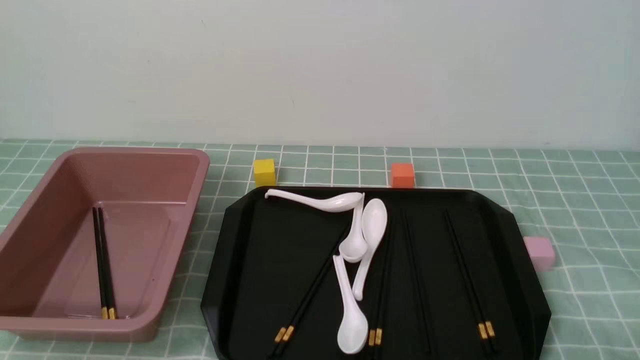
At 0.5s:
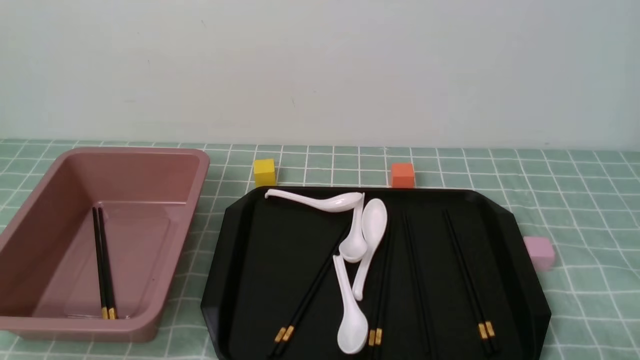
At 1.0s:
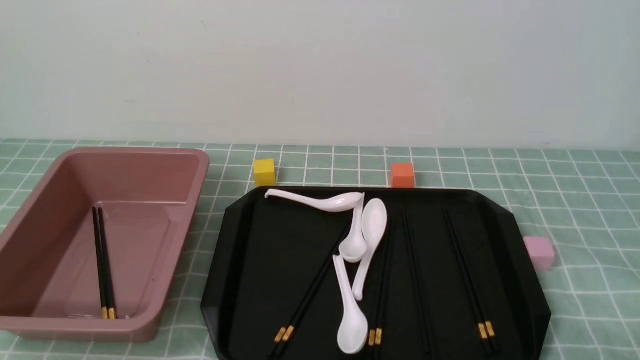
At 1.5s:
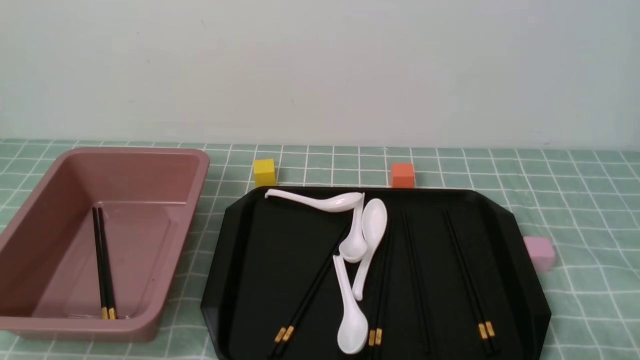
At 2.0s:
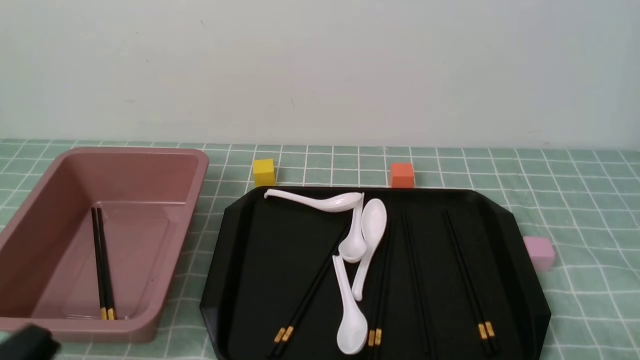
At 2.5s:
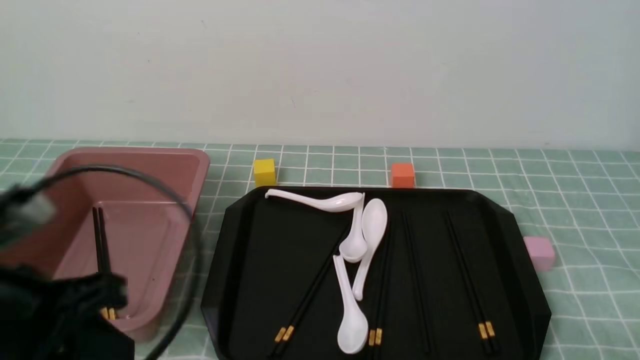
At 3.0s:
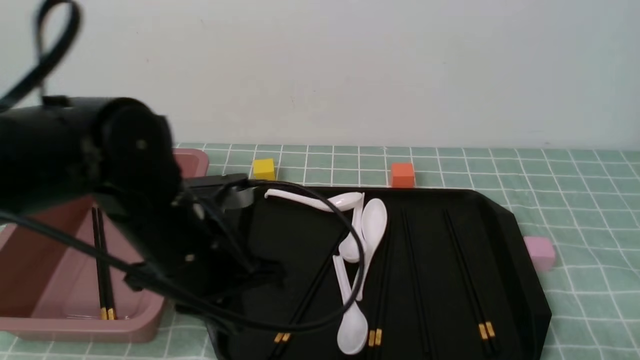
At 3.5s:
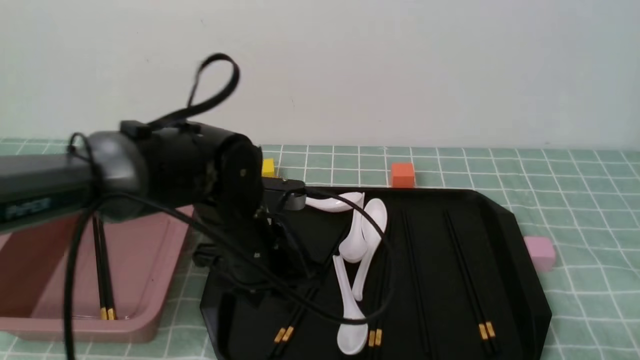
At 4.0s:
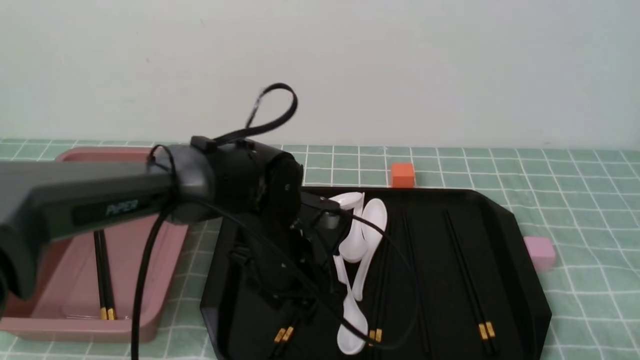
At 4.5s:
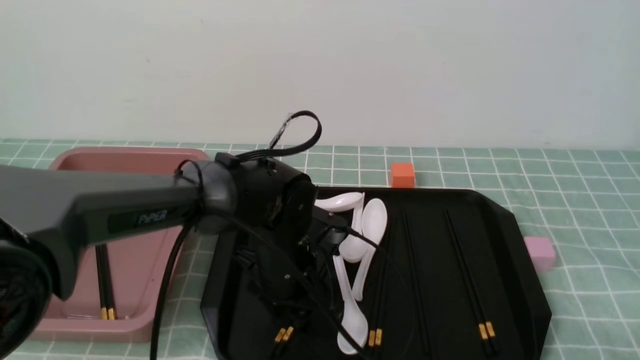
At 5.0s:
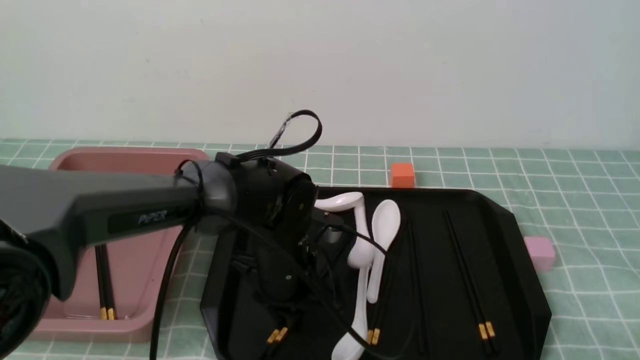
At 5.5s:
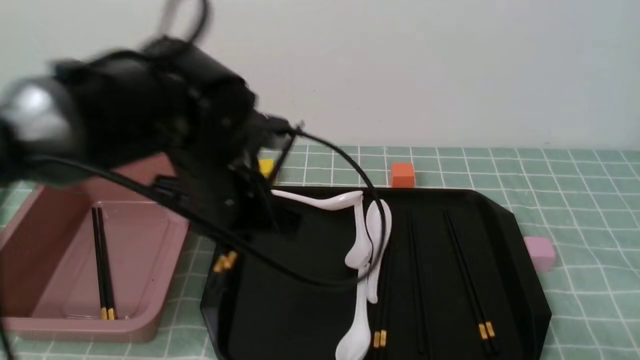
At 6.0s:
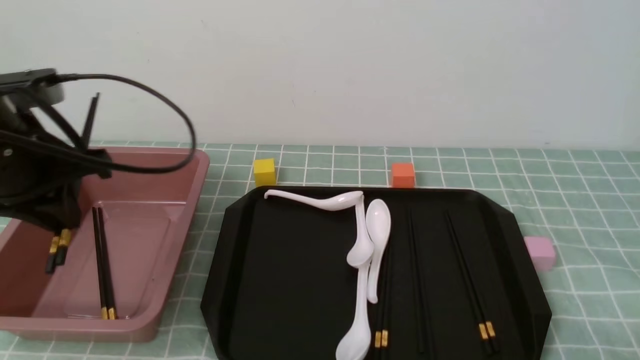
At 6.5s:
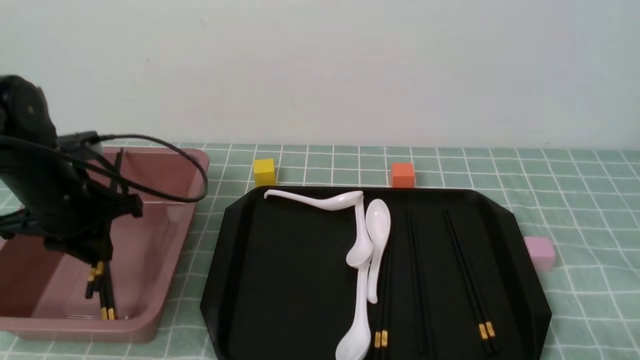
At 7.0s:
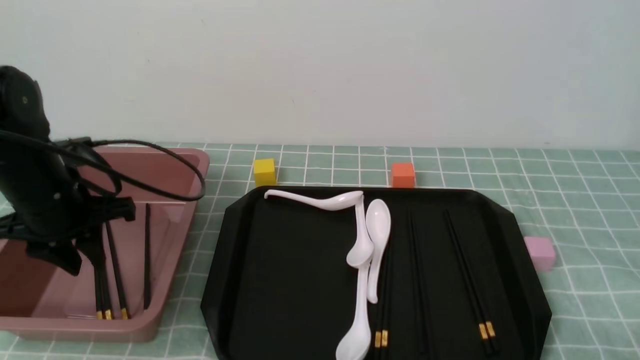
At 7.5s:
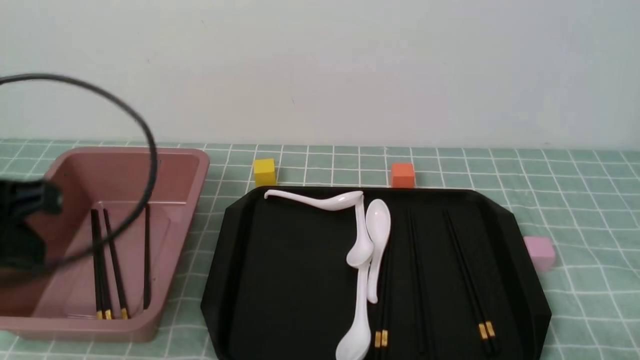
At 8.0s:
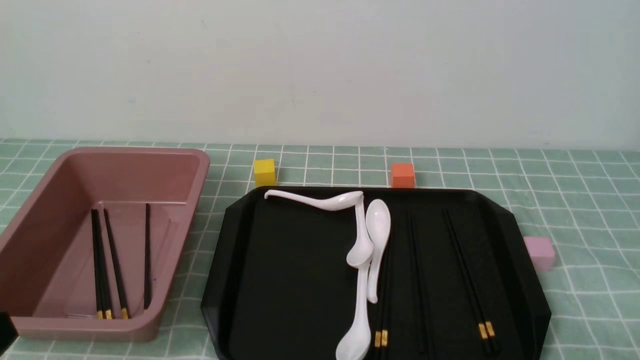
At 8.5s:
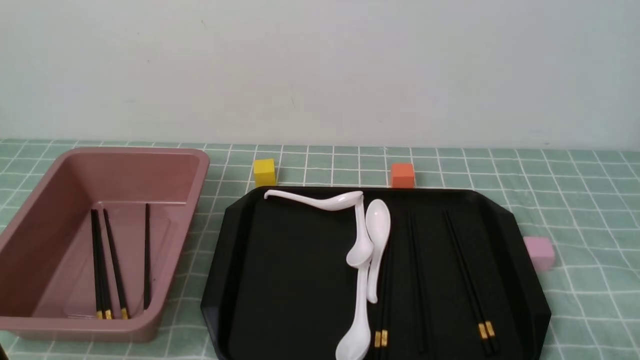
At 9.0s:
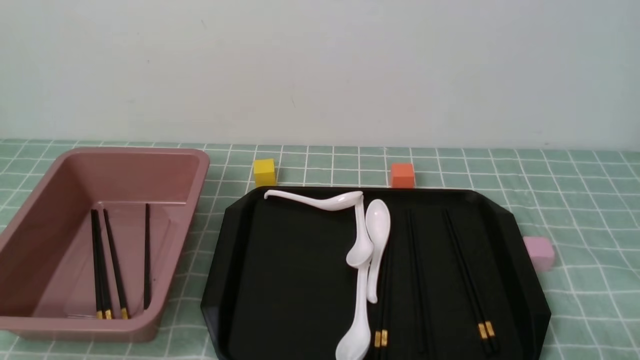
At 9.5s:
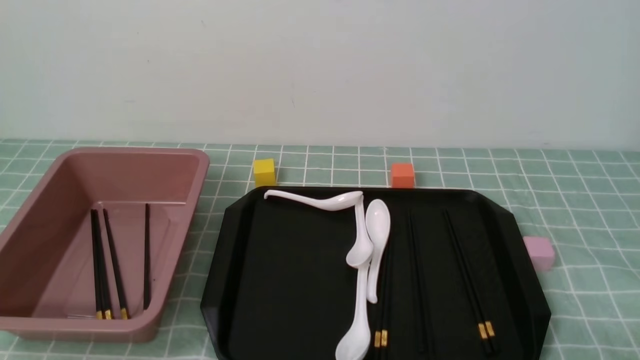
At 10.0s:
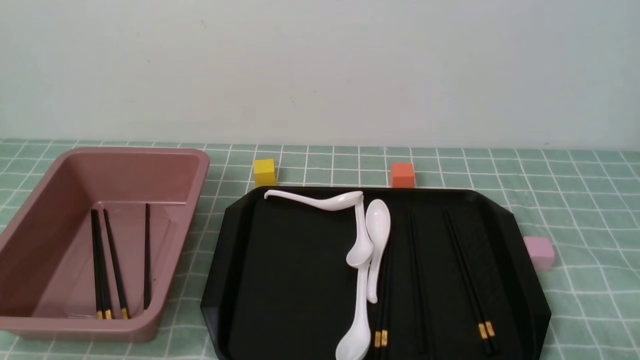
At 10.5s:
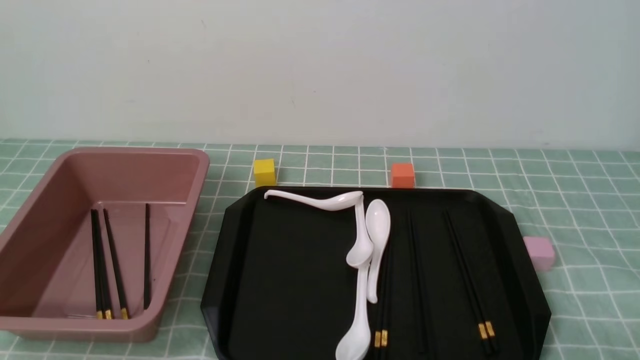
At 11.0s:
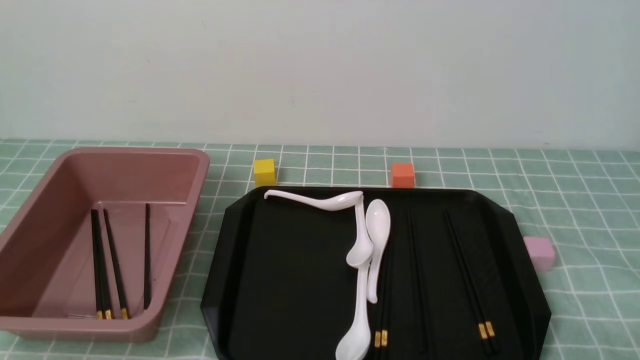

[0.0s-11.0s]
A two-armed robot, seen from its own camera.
Step, 0.0s to 5.0s: use the left arm to grab a pair of chopsticks.
Step, 5.5s to 6.5s: use the left arm to put the chopsticks into the lunch box.
0.0s to 2.0s: The left gripper shifts some 5 cm upward.
2.0s to 3.5s: The left gripper heads forward and to the right, covering some 30 cm, and opens.
3.5s to 5.5s: The left gripper is displaced upward by approximately 10 cm, and closes its fingers.
5.5s to 7.5s: The left gripper travels to the left and backward by some 20 cm.
7.5s to 9.0s: The left gripper goes some 20 cm downward and backward.
